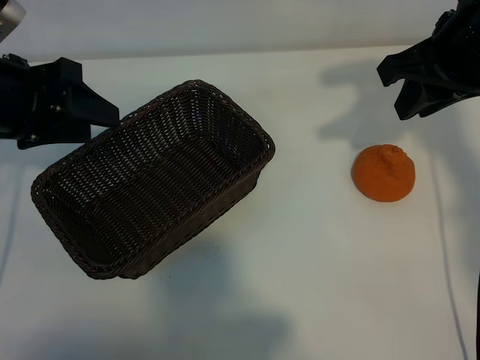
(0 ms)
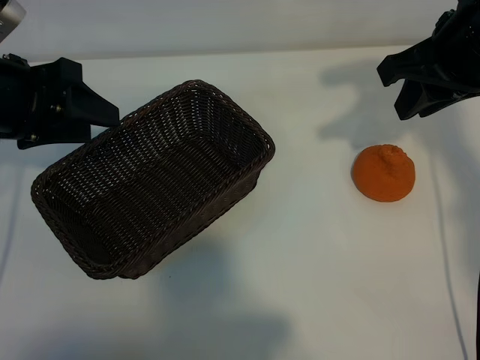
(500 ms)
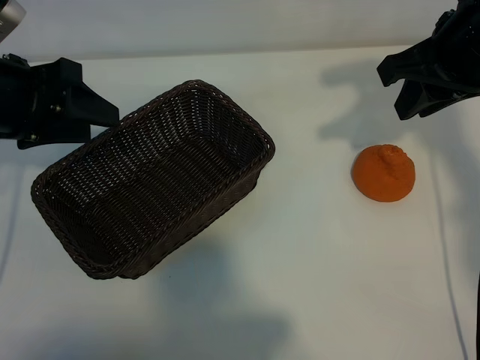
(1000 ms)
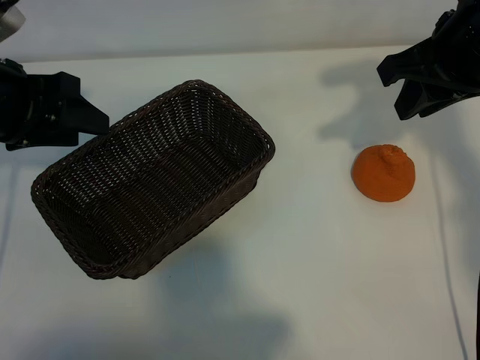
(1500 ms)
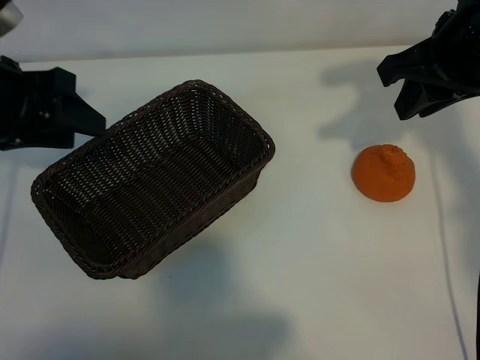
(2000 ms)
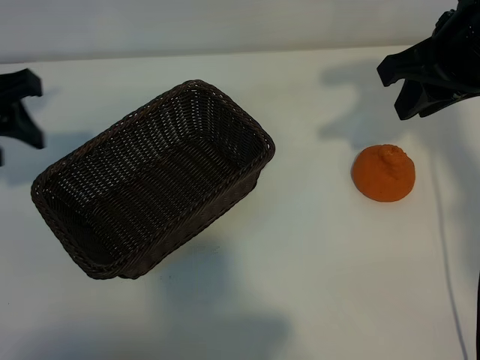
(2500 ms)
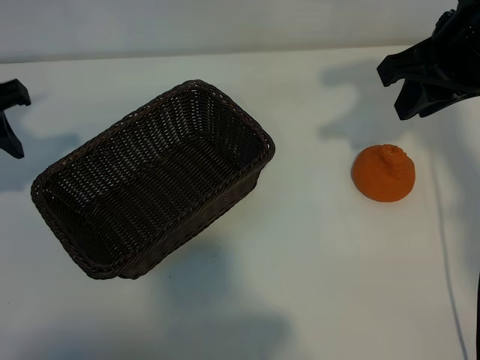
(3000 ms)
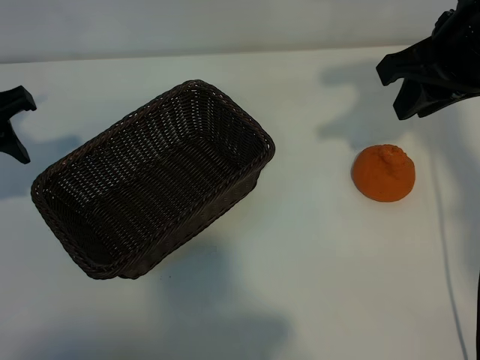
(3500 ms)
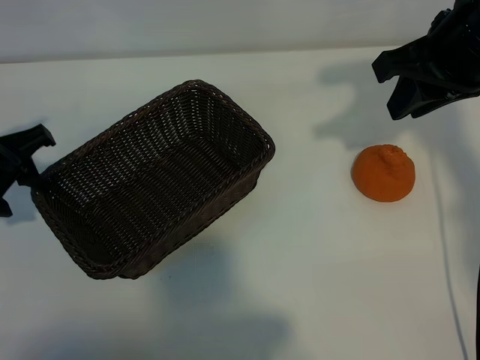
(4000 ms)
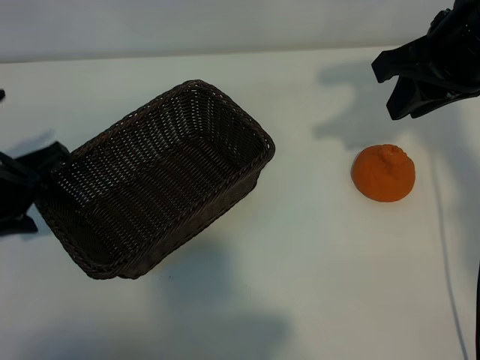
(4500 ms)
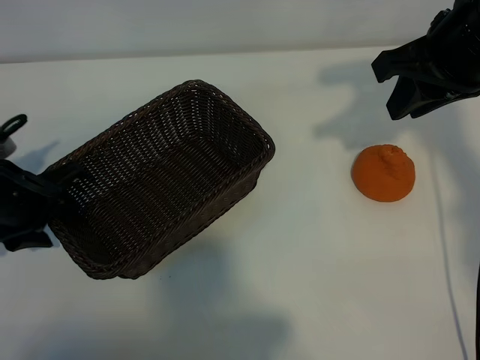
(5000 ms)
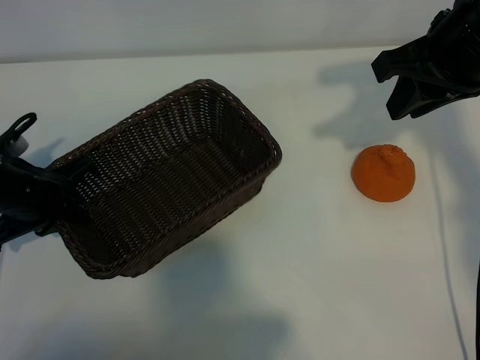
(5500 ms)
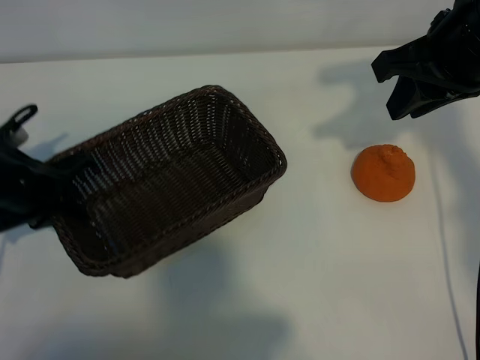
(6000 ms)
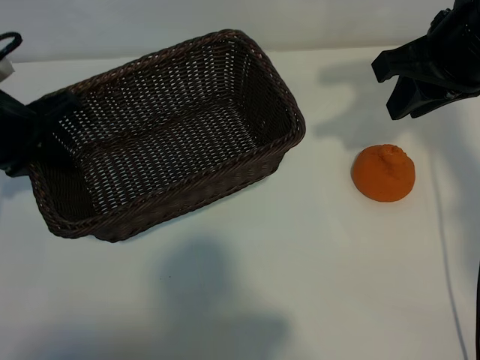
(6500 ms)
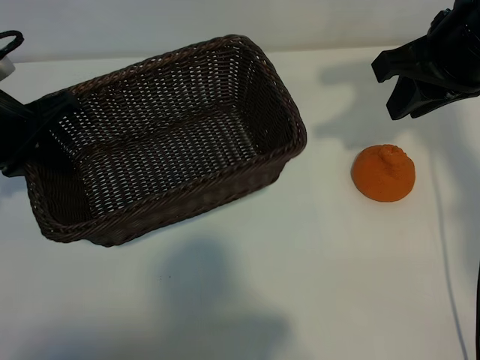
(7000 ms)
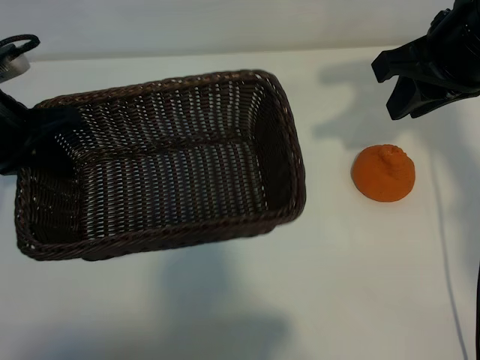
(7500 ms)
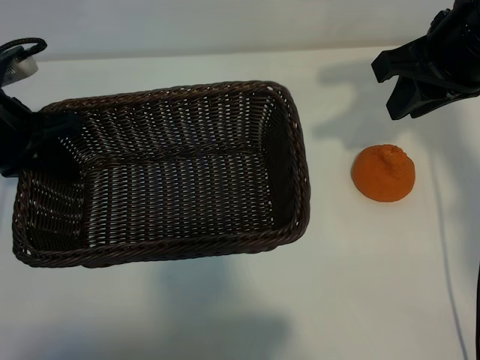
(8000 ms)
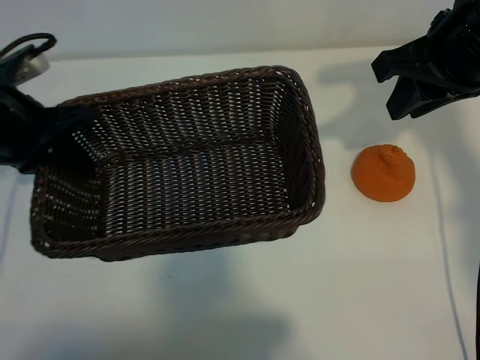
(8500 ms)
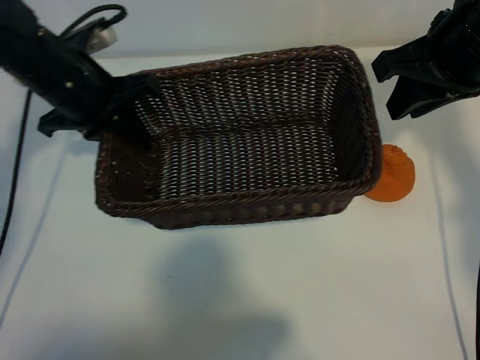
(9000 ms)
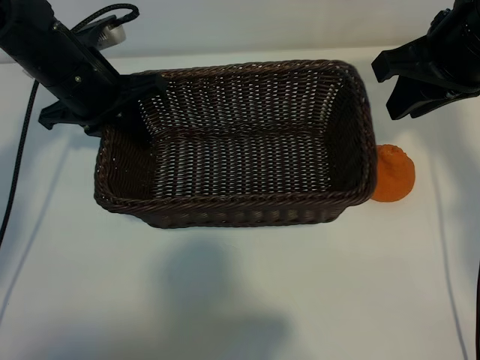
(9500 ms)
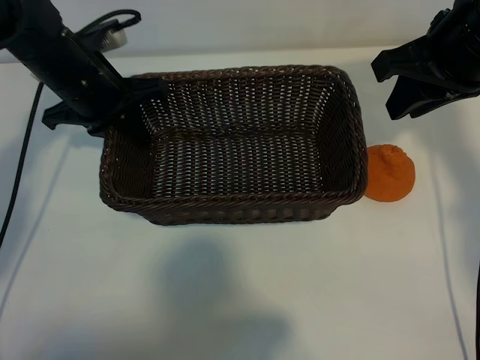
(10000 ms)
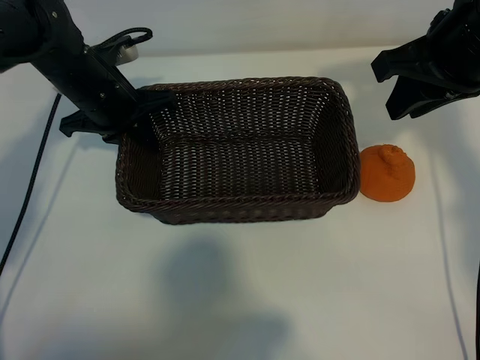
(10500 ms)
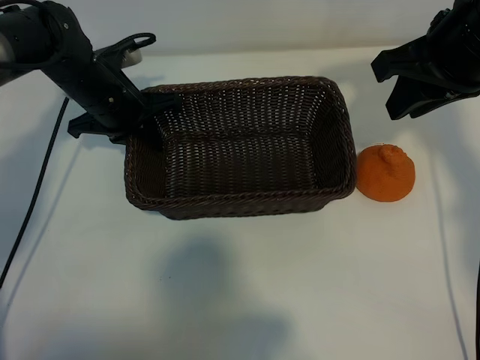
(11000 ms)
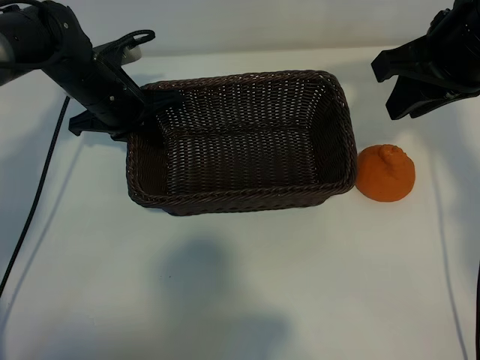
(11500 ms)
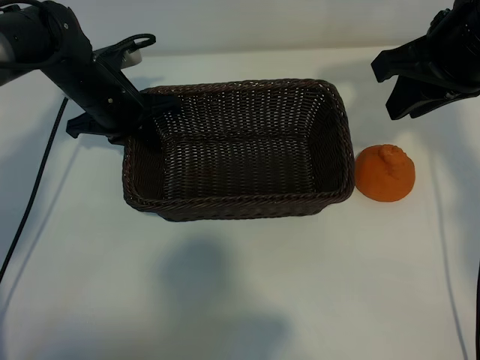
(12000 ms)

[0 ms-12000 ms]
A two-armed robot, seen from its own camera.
Task of the whole recording: pick up the orange and put it into the basket.
Step, 1500 ms to 5500 ms: Grasp the basket with left gripper.

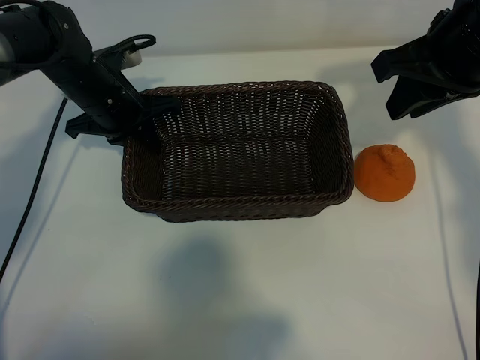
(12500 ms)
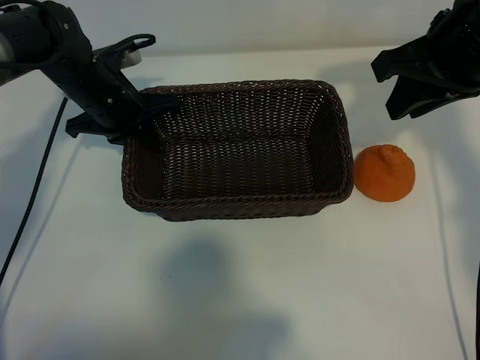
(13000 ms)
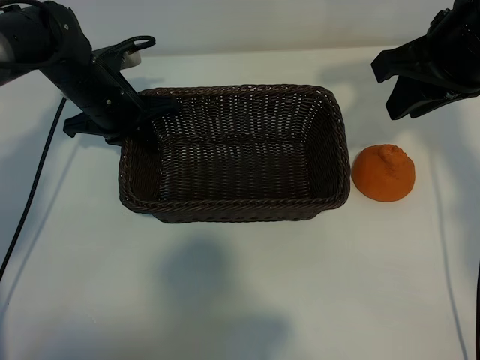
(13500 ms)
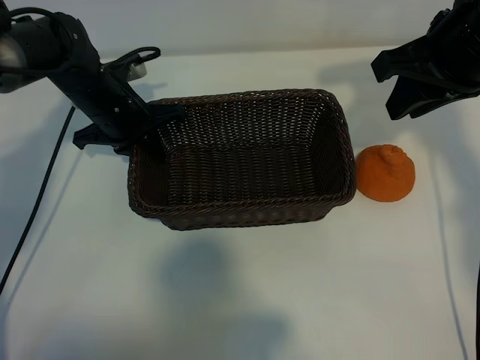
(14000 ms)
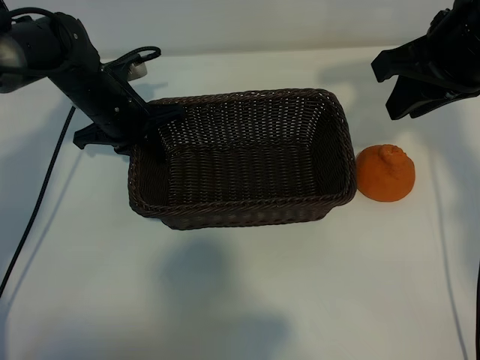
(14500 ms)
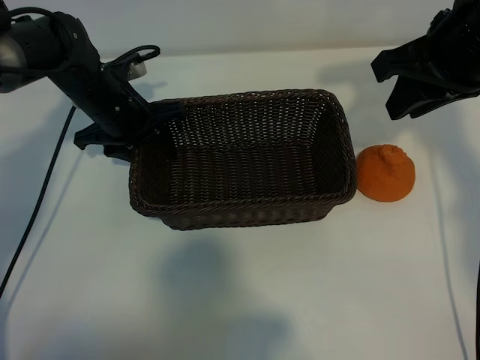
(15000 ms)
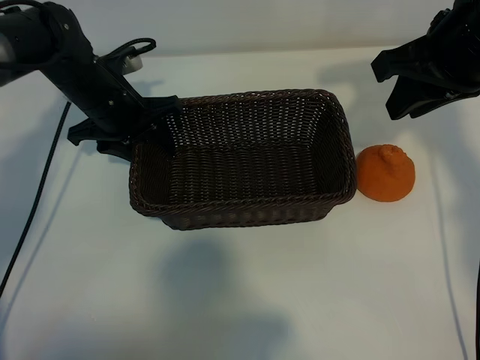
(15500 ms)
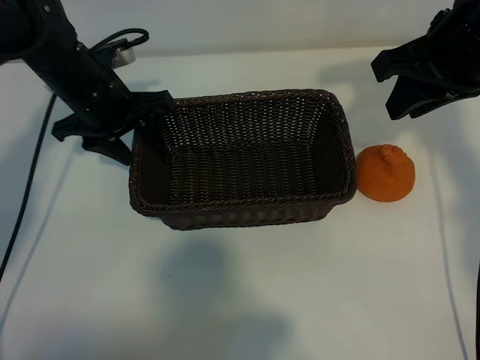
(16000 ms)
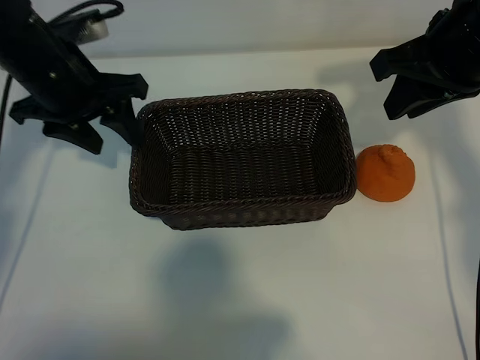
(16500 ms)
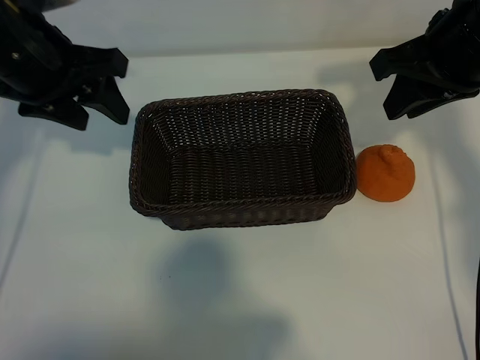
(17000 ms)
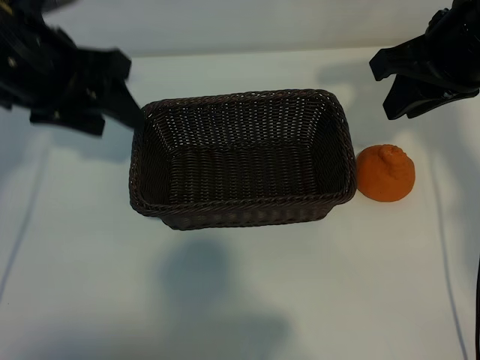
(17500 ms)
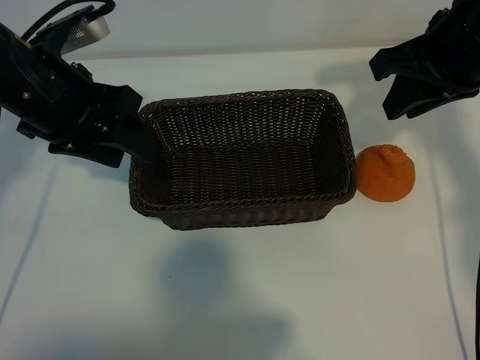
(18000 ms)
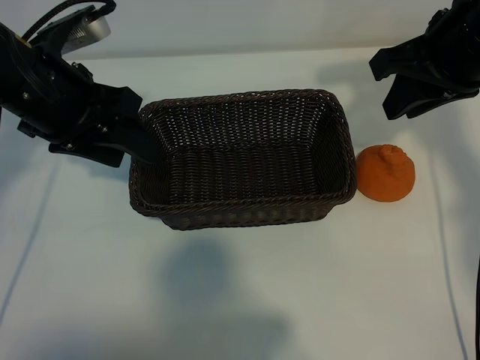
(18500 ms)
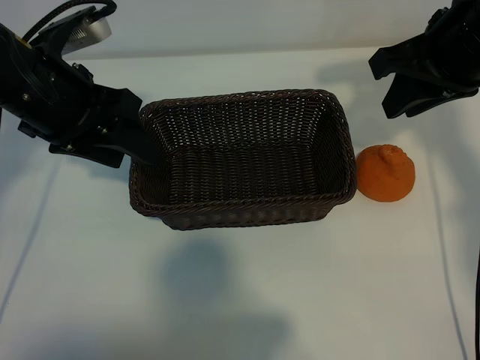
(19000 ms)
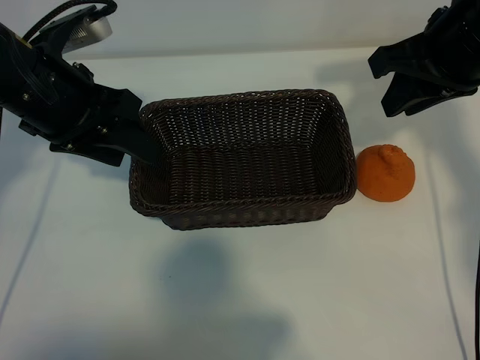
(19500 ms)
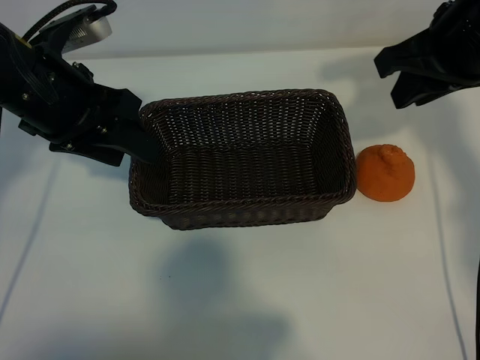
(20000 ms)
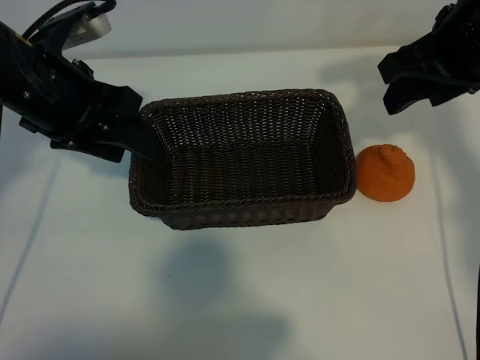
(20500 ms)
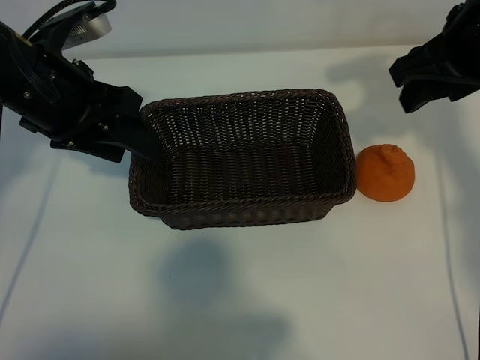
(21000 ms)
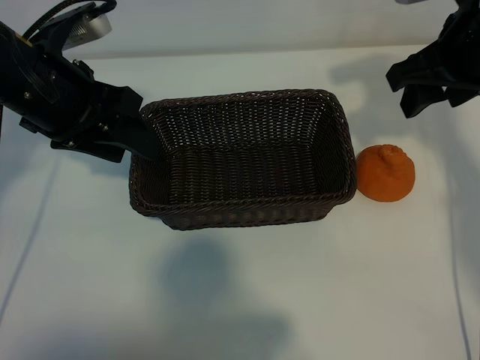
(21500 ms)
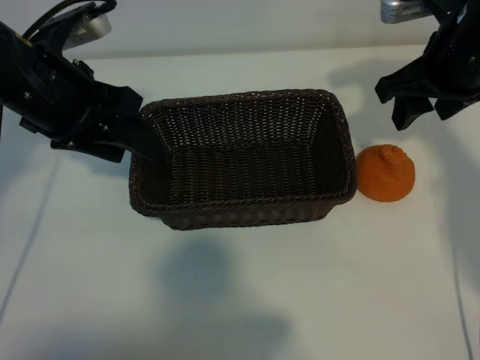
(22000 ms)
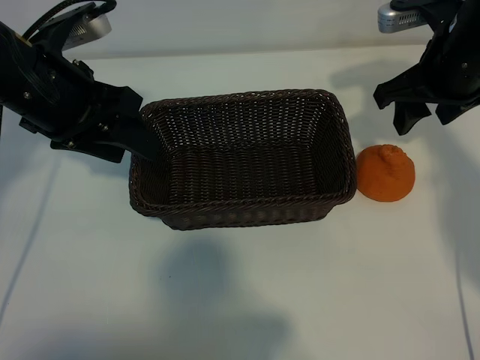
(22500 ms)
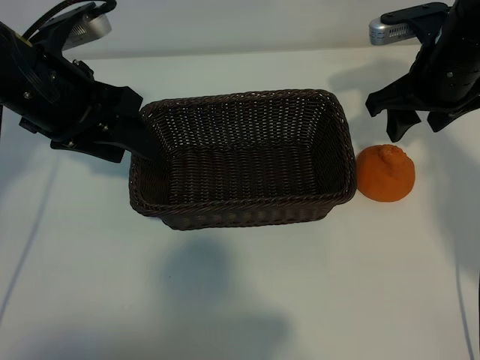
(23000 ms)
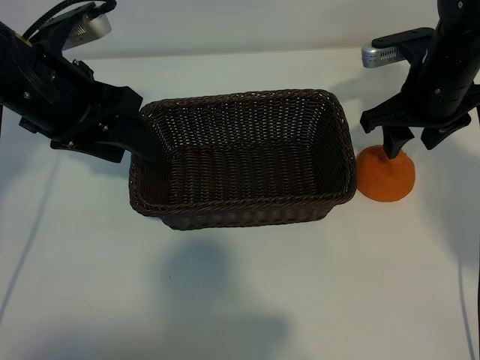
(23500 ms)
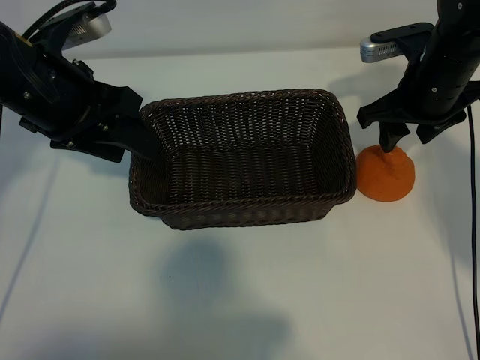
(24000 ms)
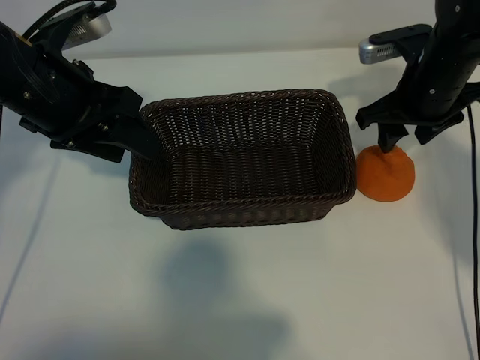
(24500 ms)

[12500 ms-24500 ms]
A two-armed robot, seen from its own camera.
Task of the whole recording: pick up the orange and put it into the basket.
Step, 12500 ms to 15000 ms: Place the basket in the center of view with left gripper.
